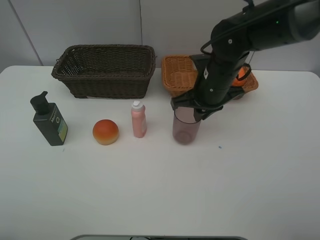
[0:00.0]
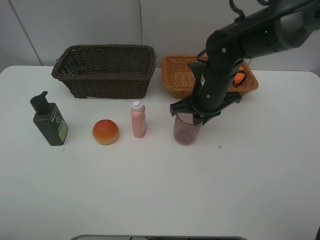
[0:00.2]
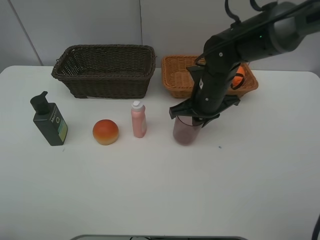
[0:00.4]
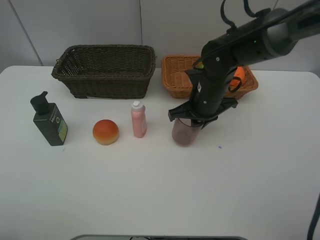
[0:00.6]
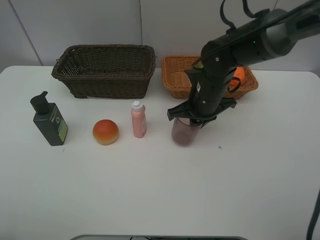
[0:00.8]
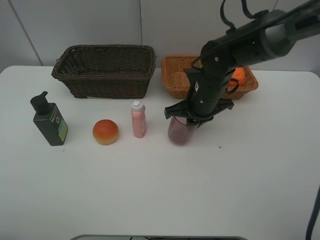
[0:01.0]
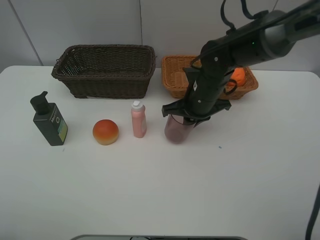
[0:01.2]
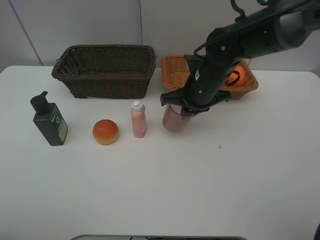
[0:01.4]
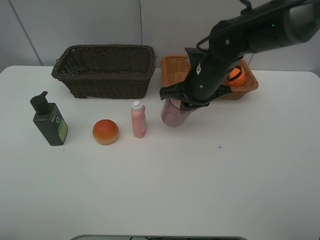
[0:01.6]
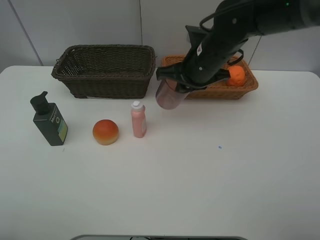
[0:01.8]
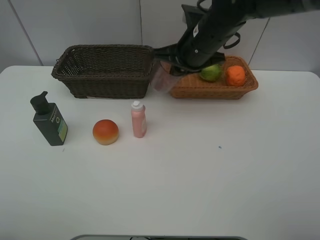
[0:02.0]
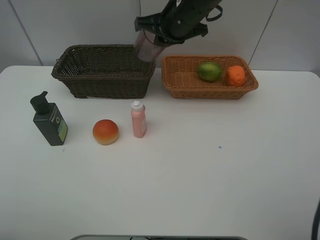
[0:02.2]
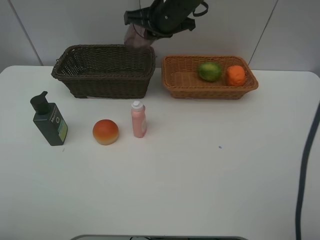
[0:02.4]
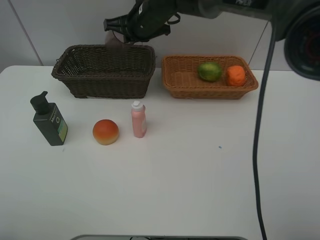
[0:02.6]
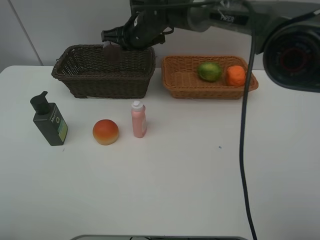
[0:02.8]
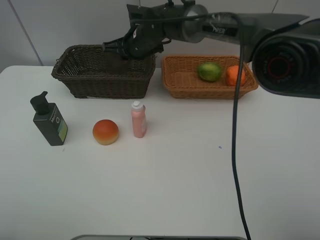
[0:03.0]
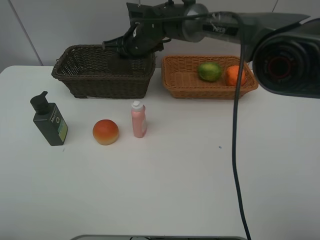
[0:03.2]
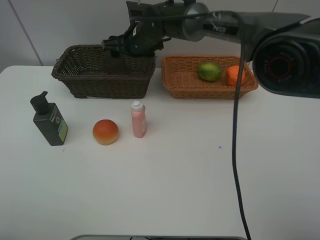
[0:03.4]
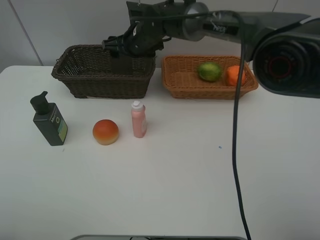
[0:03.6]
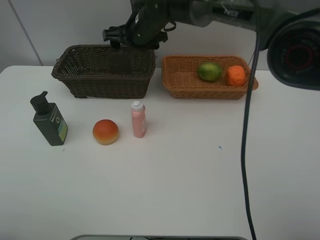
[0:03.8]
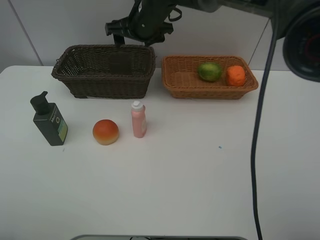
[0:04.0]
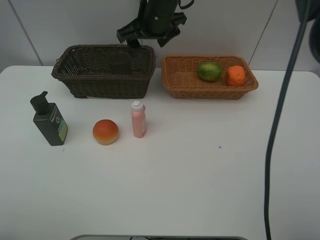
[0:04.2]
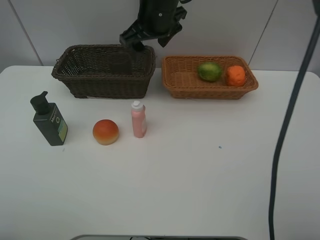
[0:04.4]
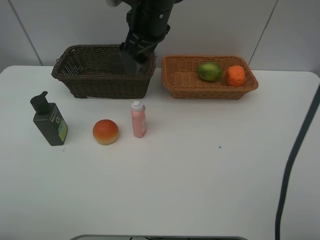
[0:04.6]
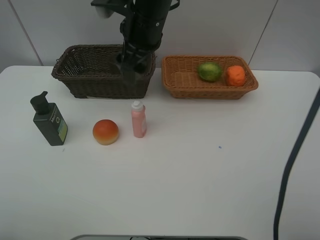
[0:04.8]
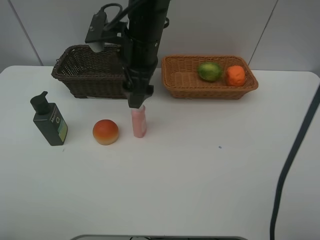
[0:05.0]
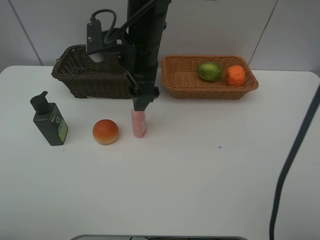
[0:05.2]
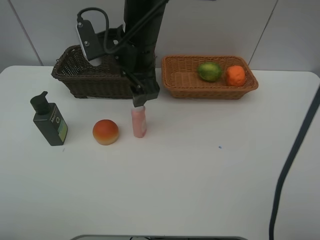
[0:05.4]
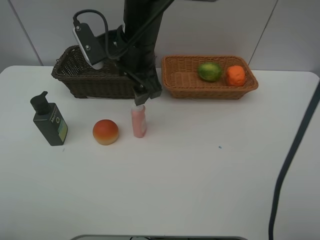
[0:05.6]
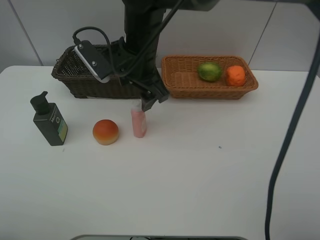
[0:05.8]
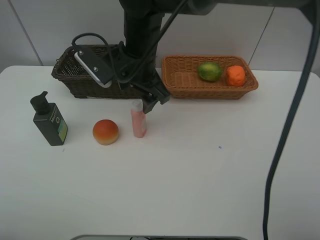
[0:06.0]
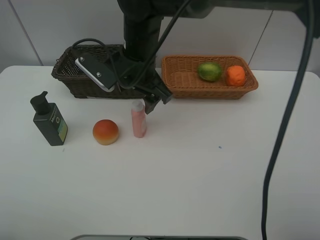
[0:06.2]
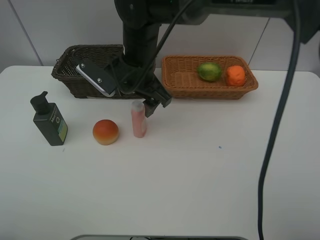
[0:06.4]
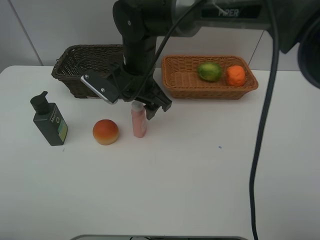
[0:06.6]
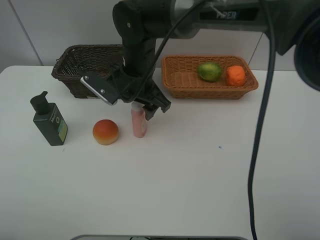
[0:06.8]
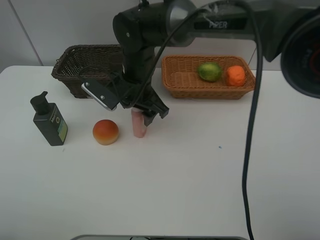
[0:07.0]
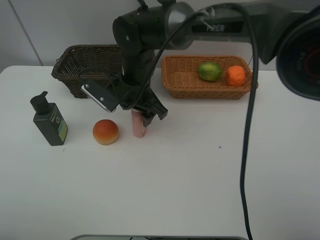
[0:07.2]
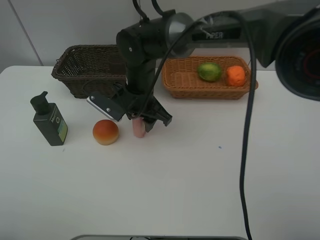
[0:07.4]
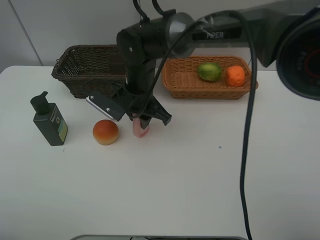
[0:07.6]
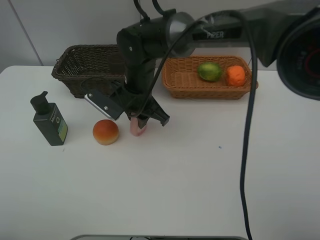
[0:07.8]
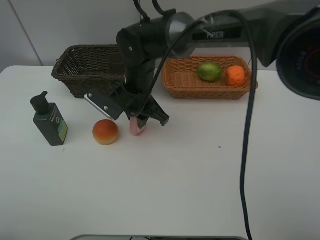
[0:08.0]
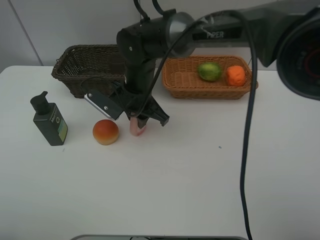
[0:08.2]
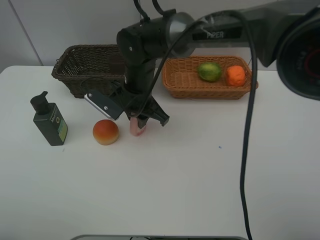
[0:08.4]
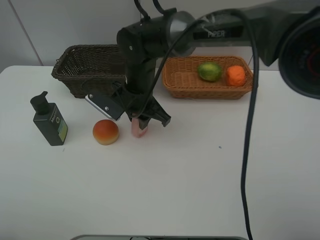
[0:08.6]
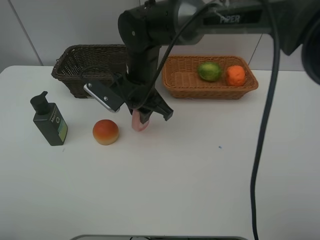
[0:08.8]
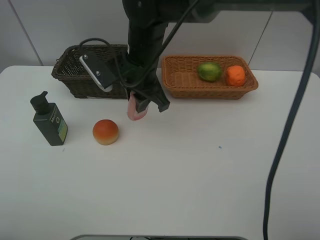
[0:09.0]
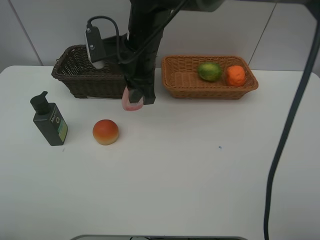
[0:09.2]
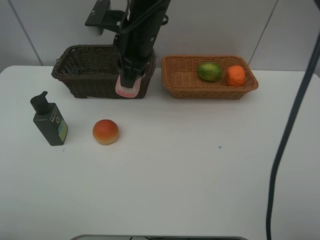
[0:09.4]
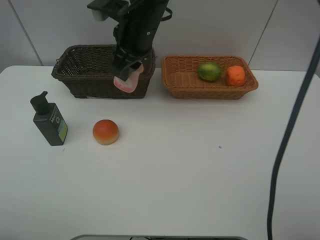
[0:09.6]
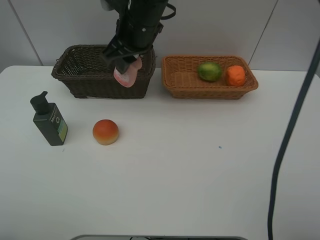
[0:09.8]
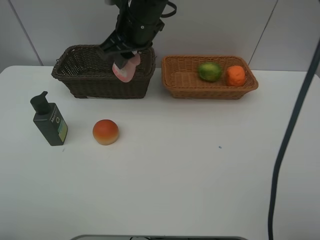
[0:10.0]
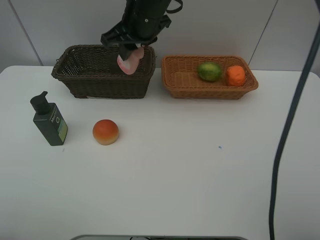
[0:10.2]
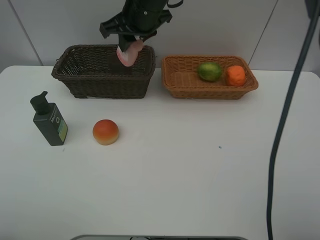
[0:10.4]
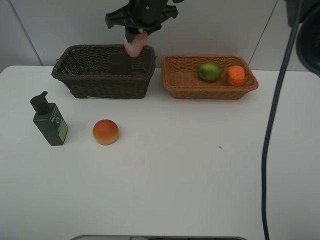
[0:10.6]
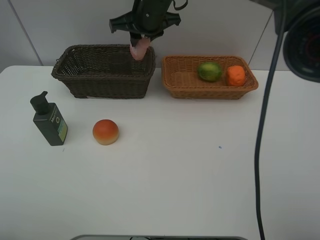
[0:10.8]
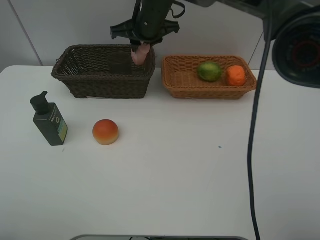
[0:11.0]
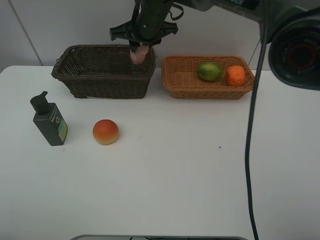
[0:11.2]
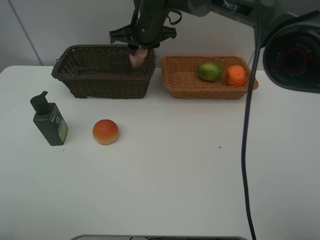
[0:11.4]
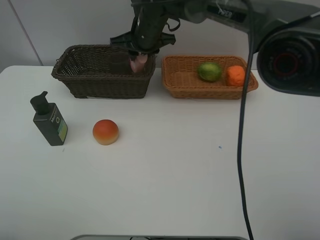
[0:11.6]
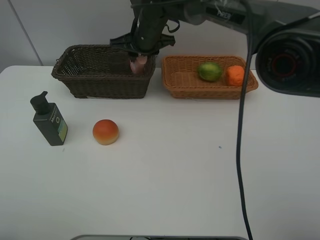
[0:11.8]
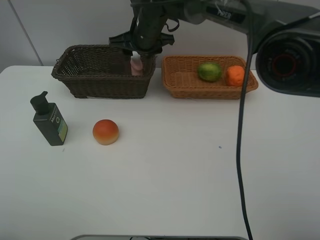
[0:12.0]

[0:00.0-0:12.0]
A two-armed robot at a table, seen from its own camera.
Task of the whole recording: place multiple objects separately in different baskets.
0:00.0 to 0:01.6: There are only small adjustments of the grippers.
0:01.6 to 0:03.0: The right gripper is displaced to the left and forward by some 20 cm.
0:03.0 to 0:04.4: The right gripper travels upward and backward by about 10 cm, and opens up.
0:04.4 to 0:06.0: The right gripper heads backward and downward, covering about 10 cm.
0:06.0 to 0:07.6: The right gripper is displaced downward by some 10 cm, and closes.
0:07.6 to 0:09.0: The right gripper moves upward, roughly 5 cm.
0:09.0 to 0:10.4: The right gripper moves forward and upward, roughly 10 cm.
0:10.4 to 0:12.0: The right gripper shifts some 5 cm downward, and opens its fingers.

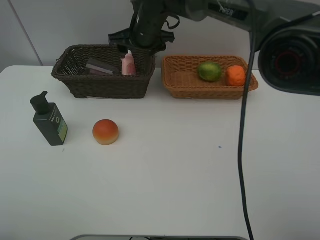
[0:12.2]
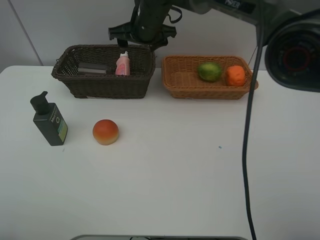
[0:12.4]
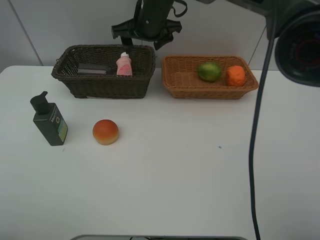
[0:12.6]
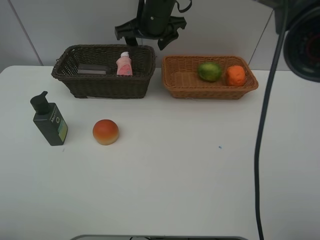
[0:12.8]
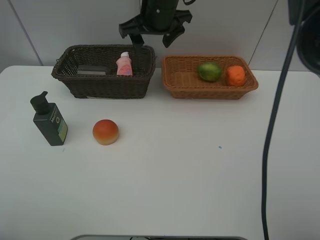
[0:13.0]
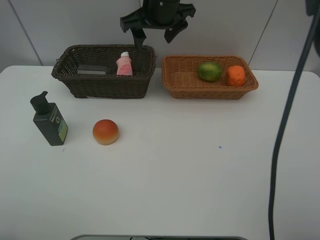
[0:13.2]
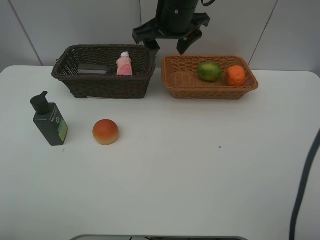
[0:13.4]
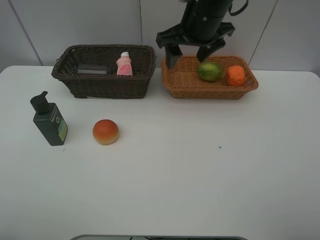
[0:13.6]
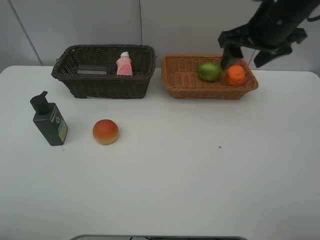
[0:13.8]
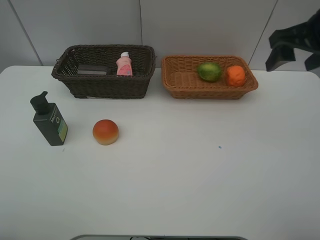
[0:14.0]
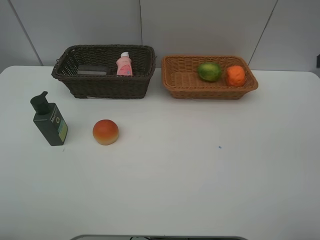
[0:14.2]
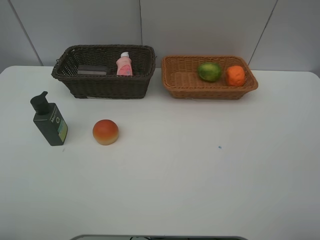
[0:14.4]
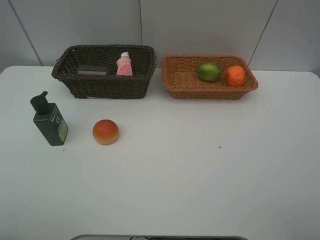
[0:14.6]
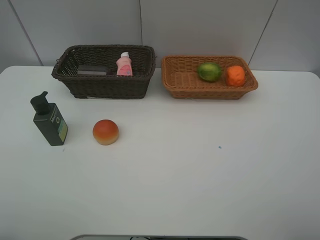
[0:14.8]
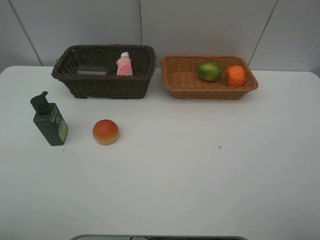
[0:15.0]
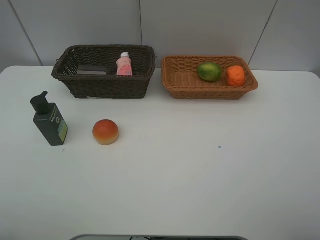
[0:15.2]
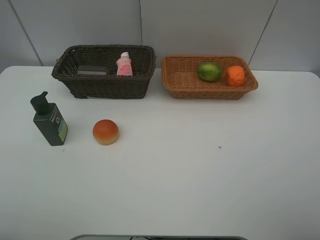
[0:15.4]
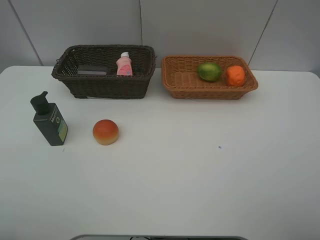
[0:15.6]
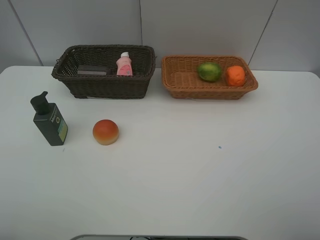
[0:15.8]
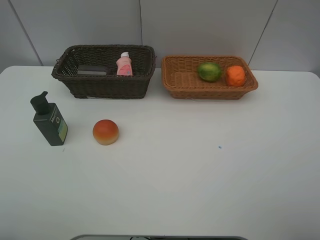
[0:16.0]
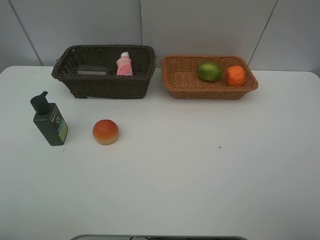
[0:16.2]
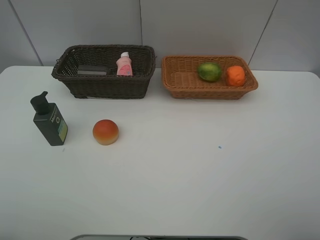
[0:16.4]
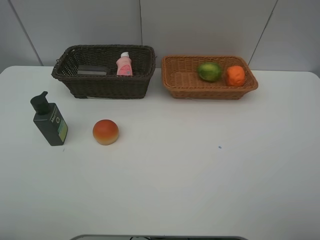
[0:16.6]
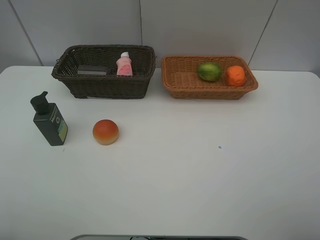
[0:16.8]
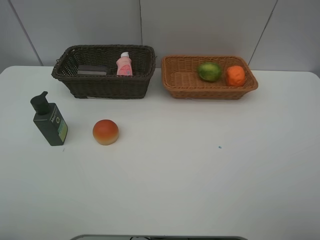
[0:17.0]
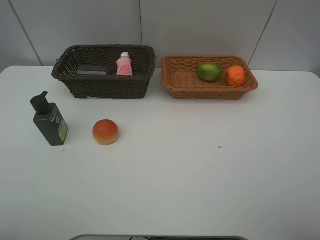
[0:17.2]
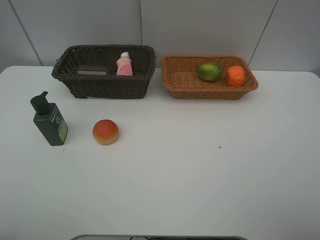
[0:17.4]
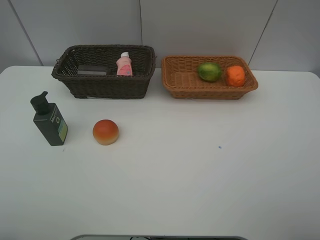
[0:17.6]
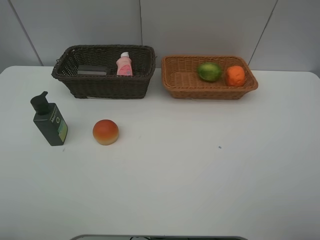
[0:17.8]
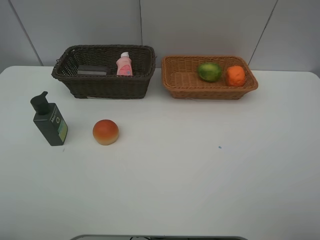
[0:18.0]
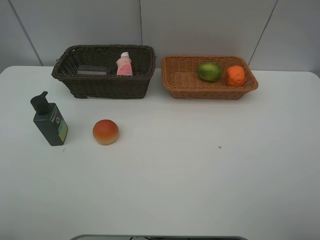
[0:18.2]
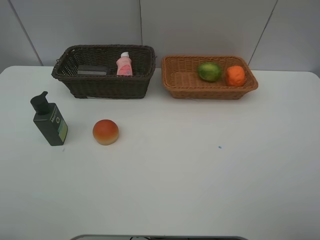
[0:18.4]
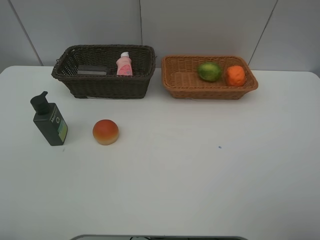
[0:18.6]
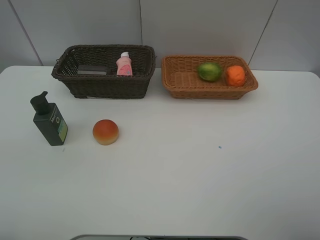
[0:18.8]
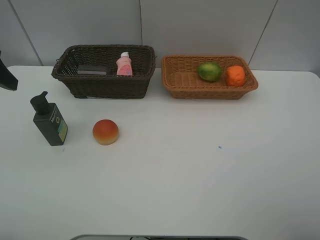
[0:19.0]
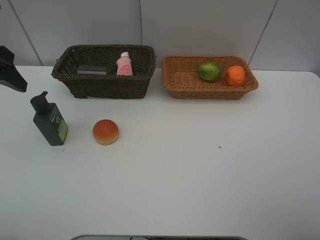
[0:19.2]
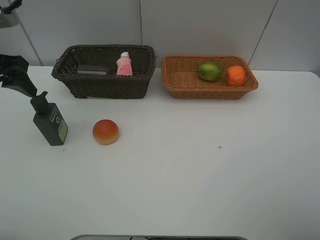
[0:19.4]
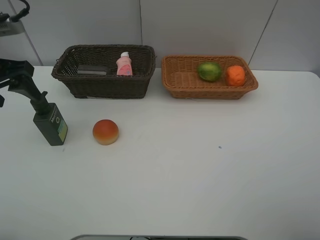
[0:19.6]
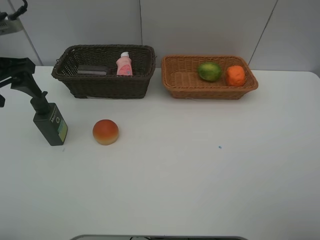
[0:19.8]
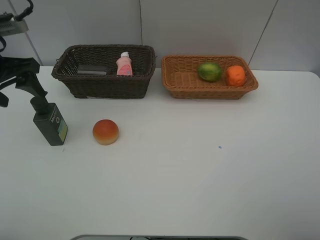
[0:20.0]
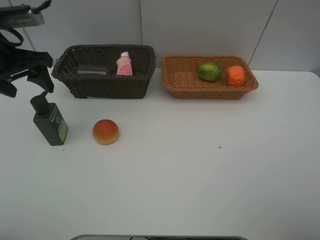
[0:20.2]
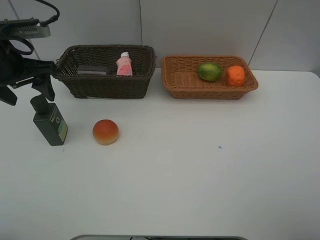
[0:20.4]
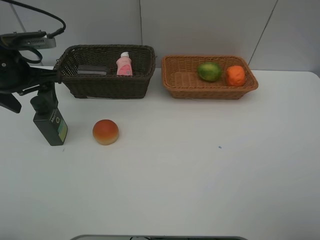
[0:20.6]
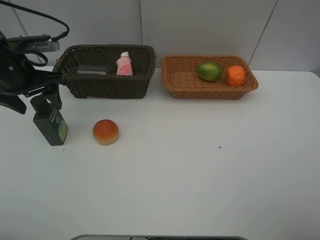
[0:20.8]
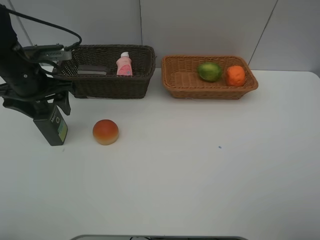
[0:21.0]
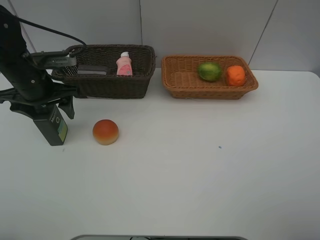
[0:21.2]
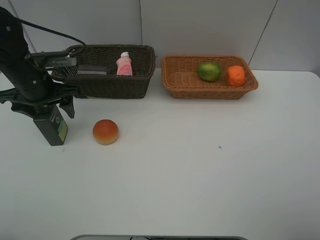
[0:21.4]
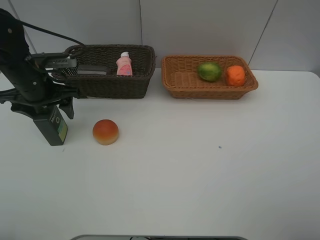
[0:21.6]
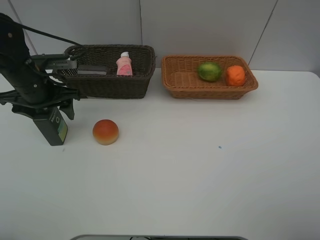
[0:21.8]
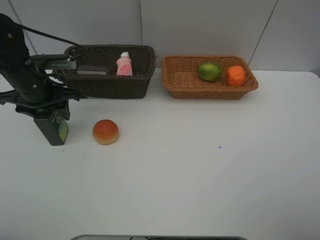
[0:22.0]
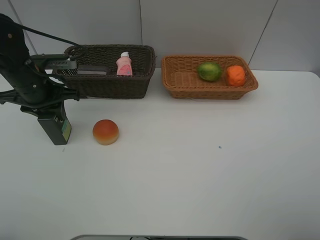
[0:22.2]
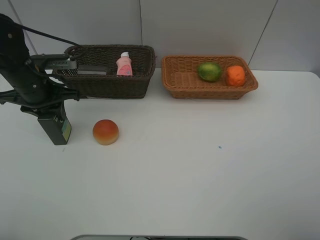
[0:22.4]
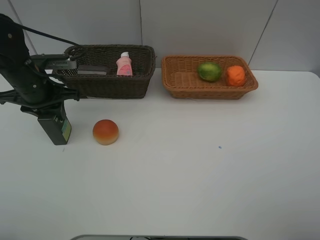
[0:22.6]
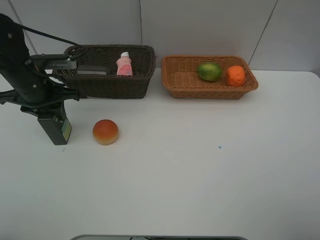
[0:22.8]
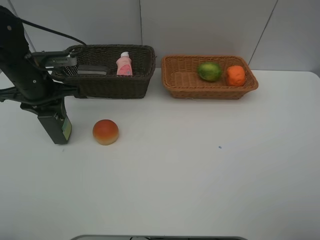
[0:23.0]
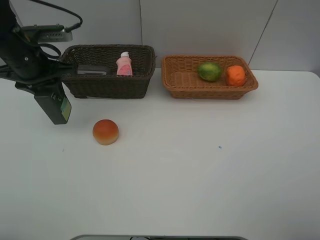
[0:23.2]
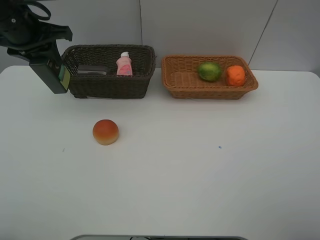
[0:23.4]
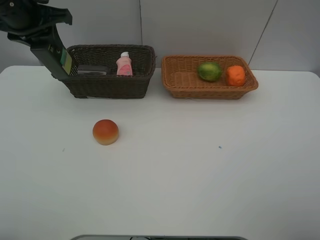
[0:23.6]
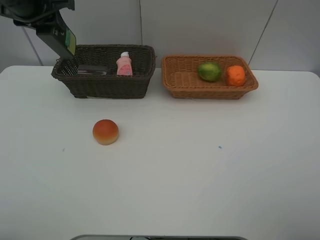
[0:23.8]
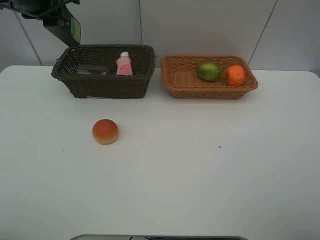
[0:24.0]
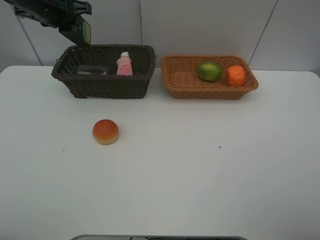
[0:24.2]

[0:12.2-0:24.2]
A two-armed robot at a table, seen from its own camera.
Task of the whole recording: place multiple objects separately in different baskets.
0:12.2 to 0:13.8: The right gripper shifts roughly 30 cm to the right and backward.
0:13.8 to 0:15.2: The right gripper is displaced backward by some 30 cm.
0:18.2 to 0:19.8: The left gripper travels forward by approximately 20 cm.
0:19.8 to 0:21.2: The left gripper travels downward and to the right by approximately 10 cm.
0:21.2 to 0:22.6: The left gripper closes its fingers.
0:22.6 to 0:24.2: The left gripper moves forward and upward, about 15 cm.
